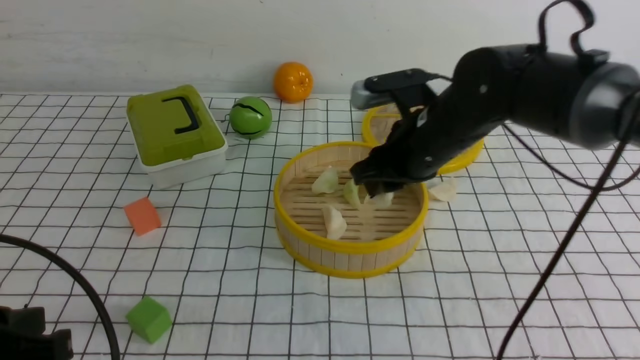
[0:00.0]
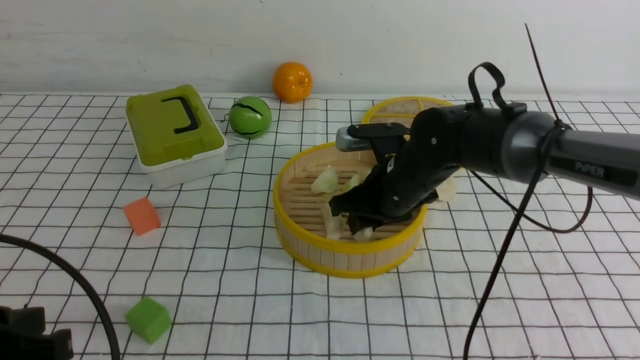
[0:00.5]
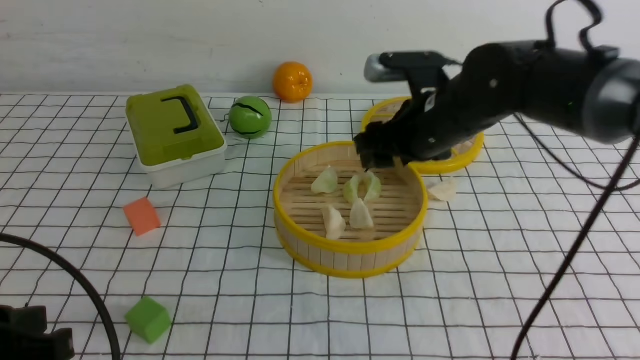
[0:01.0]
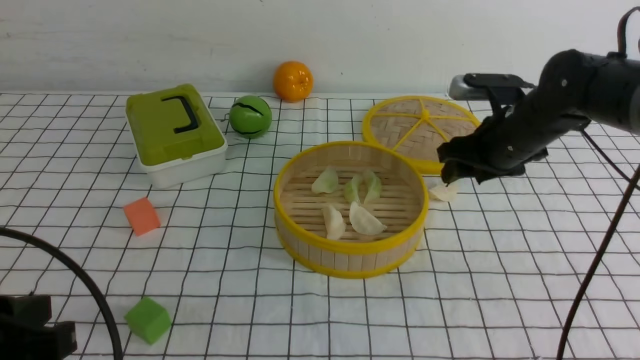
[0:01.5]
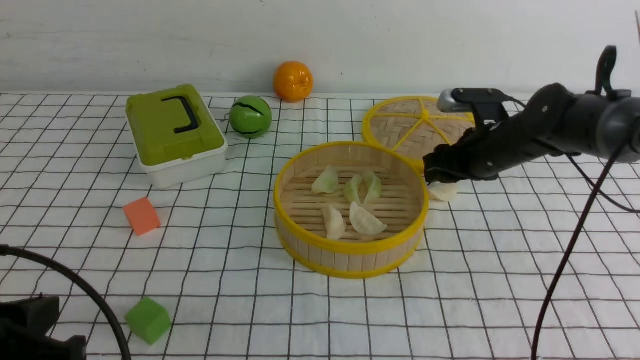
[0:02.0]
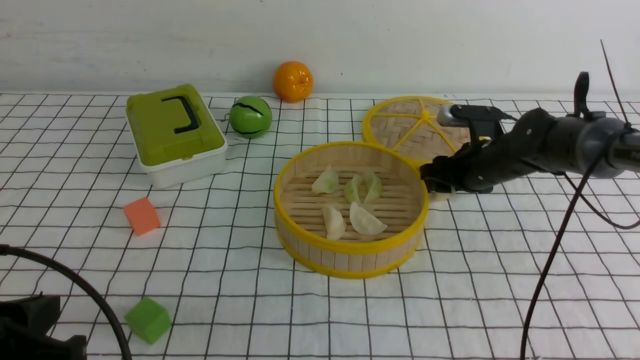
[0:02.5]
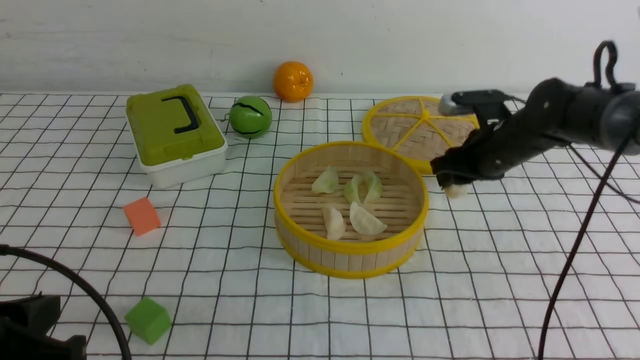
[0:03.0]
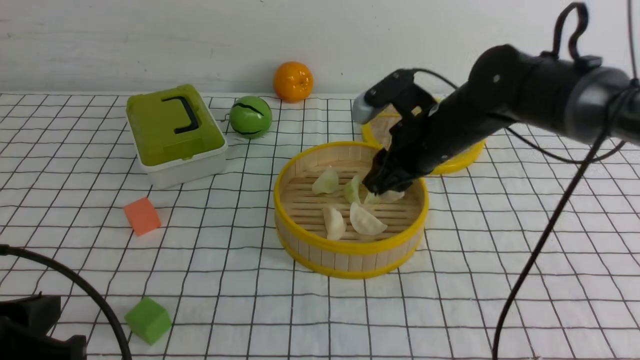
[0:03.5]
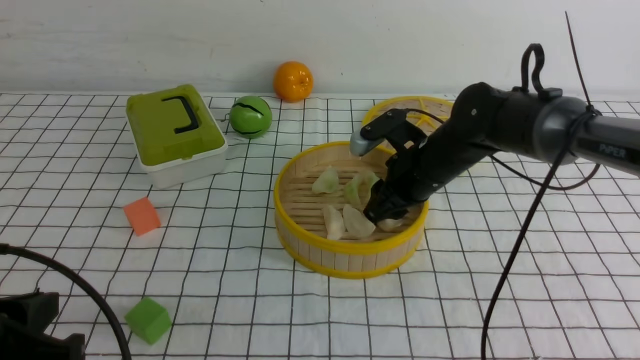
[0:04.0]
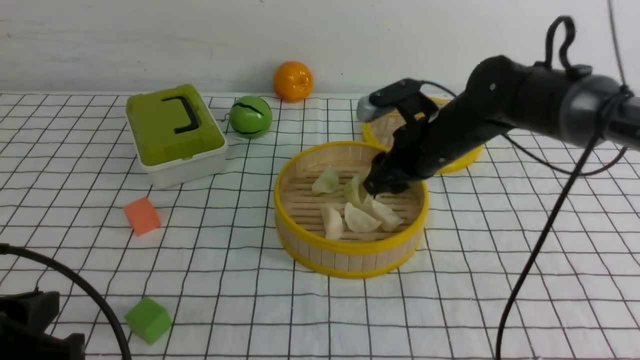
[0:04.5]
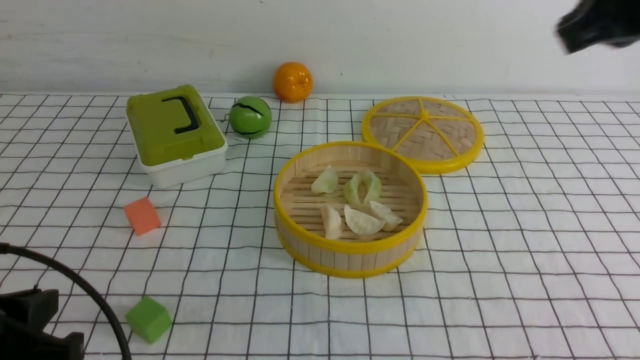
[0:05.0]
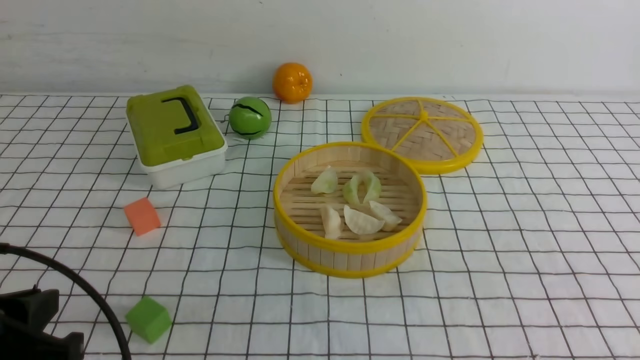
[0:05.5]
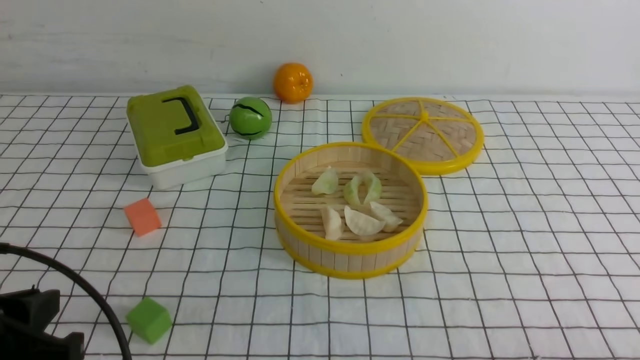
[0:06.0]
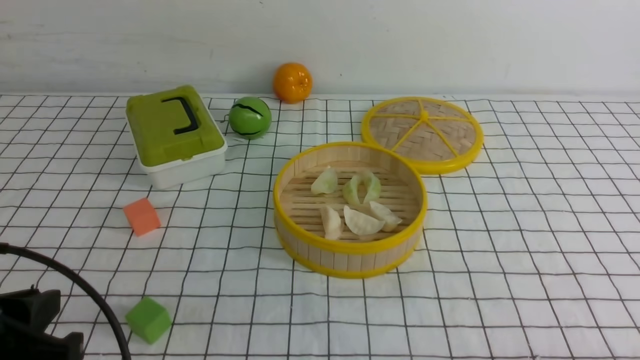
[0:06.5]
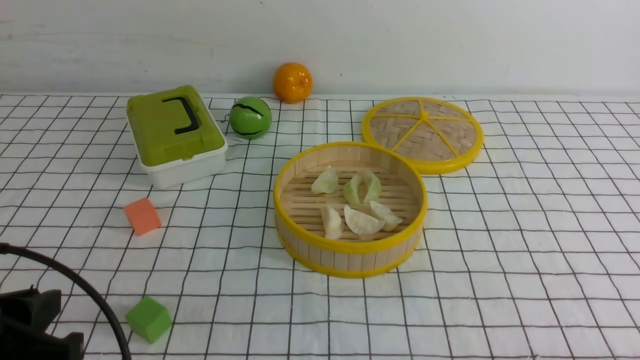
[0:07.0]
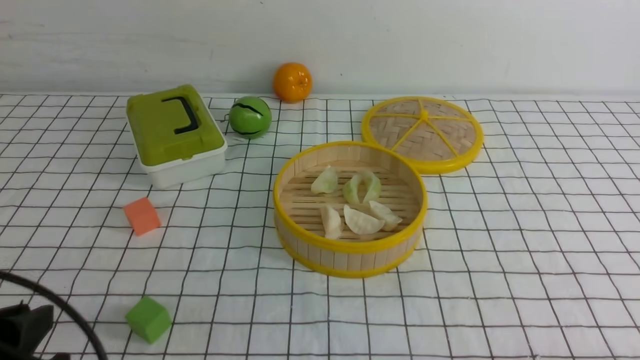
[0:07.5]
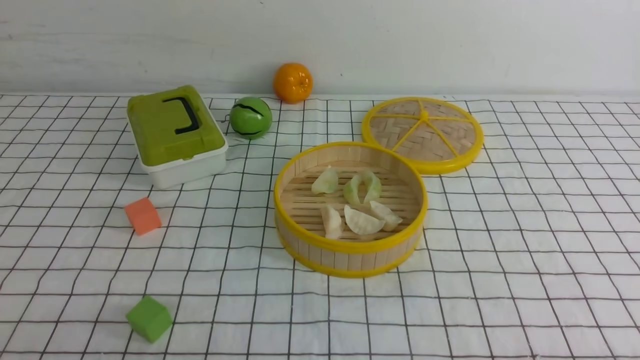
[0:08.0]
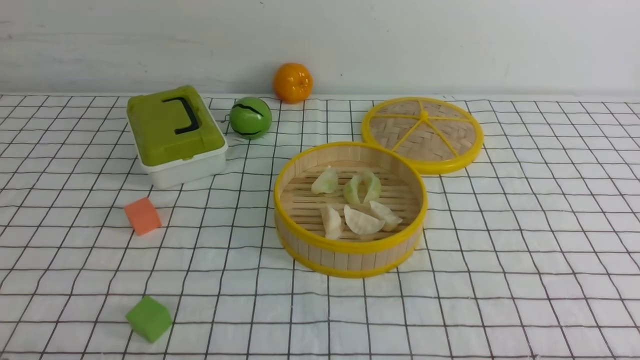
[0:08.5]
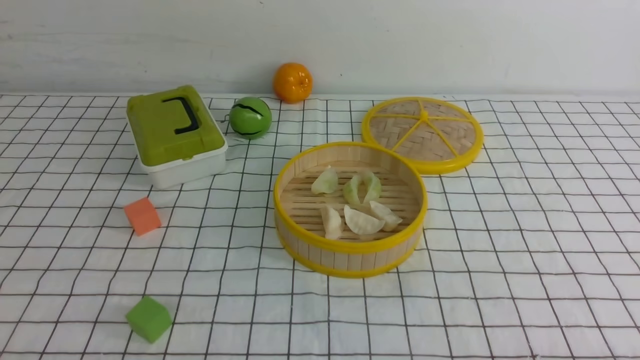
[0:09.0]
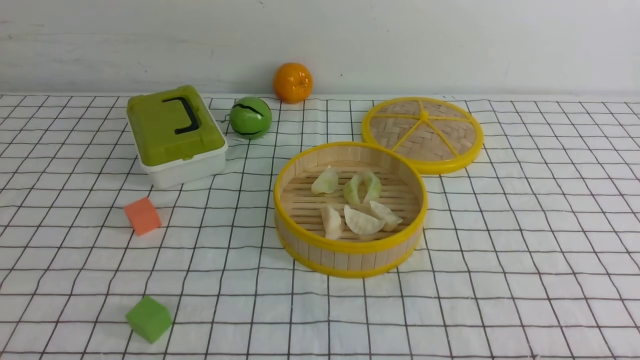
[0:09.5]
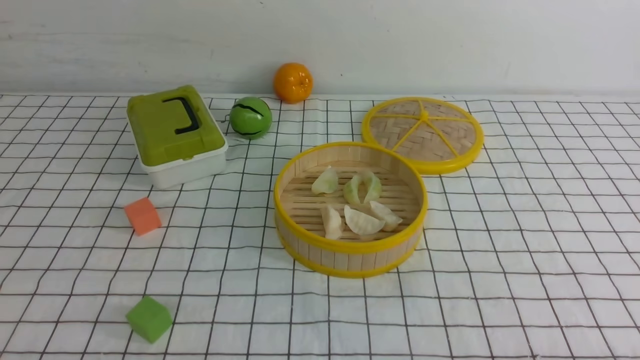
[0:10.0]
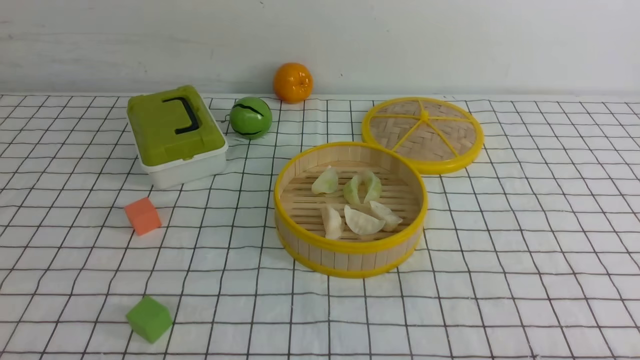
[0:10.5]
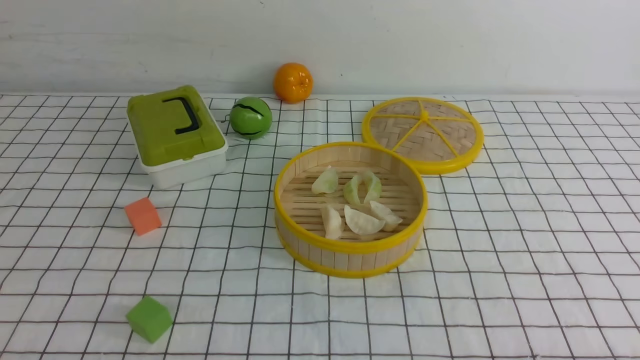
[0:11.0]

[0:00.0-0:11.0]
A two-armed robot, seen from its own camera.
Task of the whole recording: put the dumplings into the steamer on the table with the white tablecloth.
Step, 0:00.0 to 0:00.5: use the right arm to put the dumpling into the steamer.
Step, 0:01.0 to 0:03.0: use the right arm to grab a dumpling.
Step, 0:03.5 to 0:04.5: use the right arm to put the dumpling into the steamer.
0:00.0 to 0:02.0: The right gripper heads to the right, forward and downward, covering approximately 15 cm, and opens up.
0:02.0 to 0:03.5: The right gripper travels to the left and upward by some 10 cm.
0:03.5 to 0:05.5: The right gripper goes about 35 cm backward and to the right, and closes up.
0:07.5 to 0:09.0: The left gripper goes some 10 cm downward and backward, and closes.
0:09.0 to 0:11.0: Both grippers stay about where they are.
